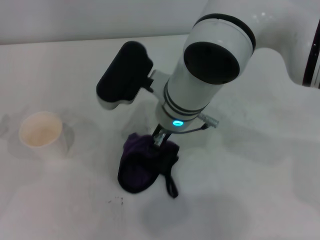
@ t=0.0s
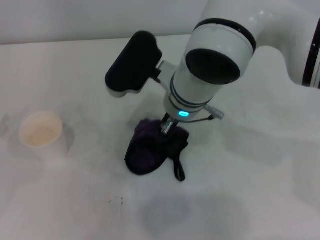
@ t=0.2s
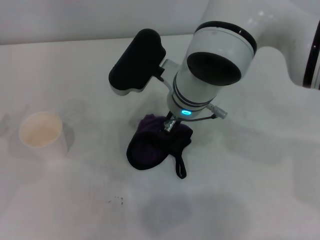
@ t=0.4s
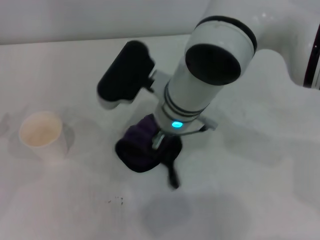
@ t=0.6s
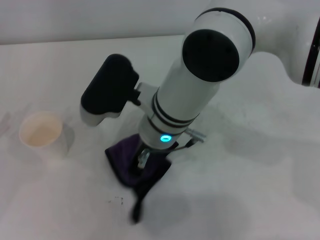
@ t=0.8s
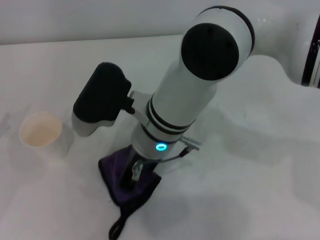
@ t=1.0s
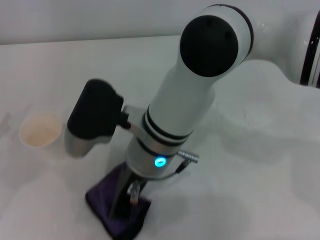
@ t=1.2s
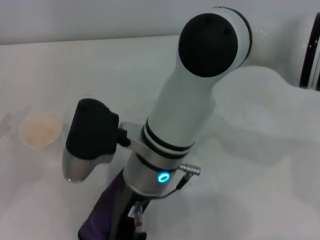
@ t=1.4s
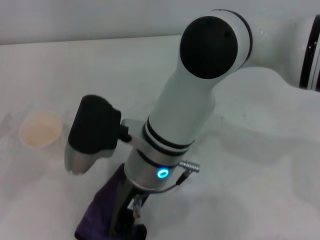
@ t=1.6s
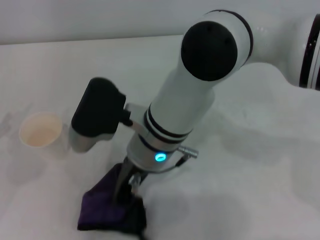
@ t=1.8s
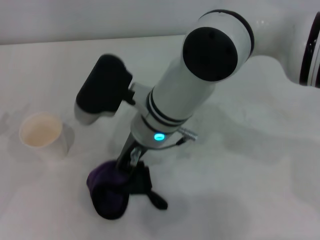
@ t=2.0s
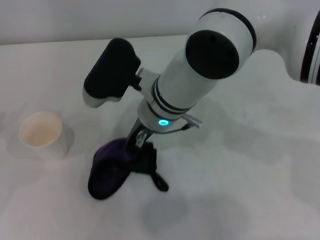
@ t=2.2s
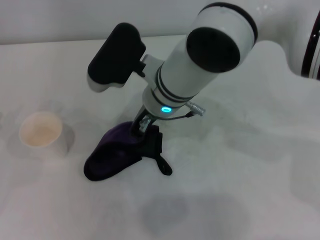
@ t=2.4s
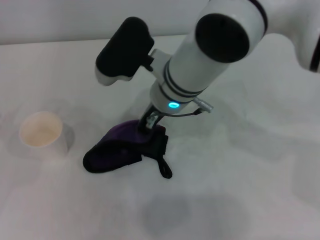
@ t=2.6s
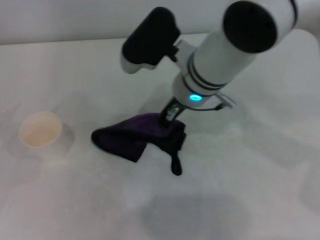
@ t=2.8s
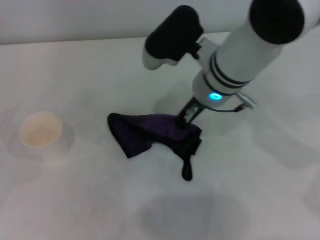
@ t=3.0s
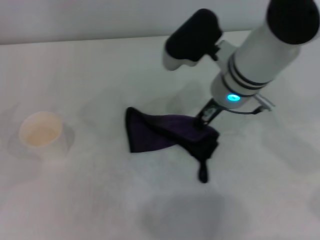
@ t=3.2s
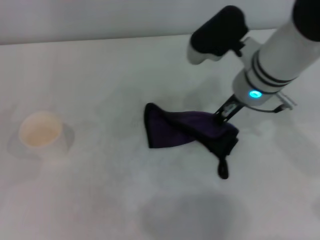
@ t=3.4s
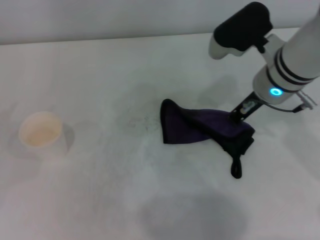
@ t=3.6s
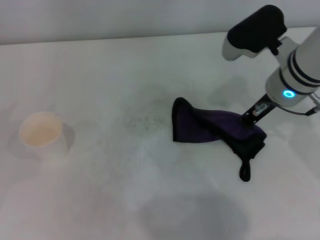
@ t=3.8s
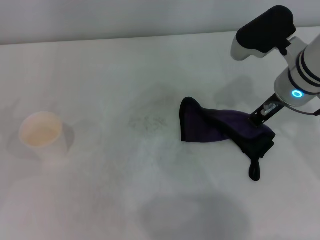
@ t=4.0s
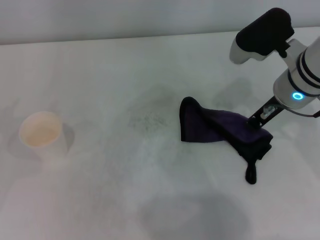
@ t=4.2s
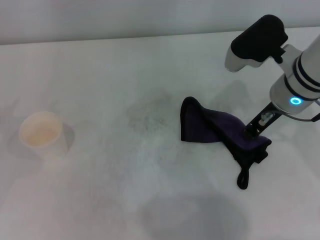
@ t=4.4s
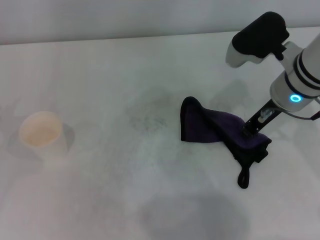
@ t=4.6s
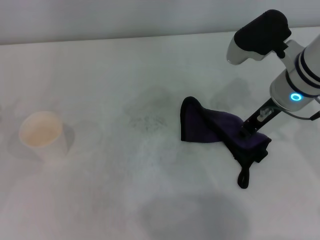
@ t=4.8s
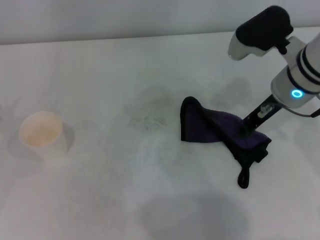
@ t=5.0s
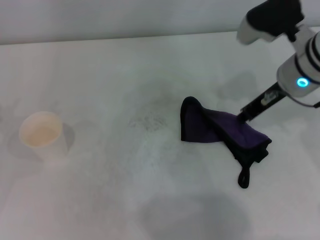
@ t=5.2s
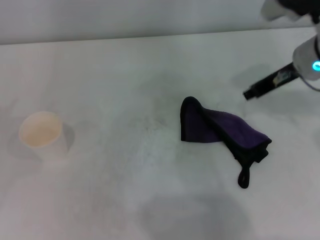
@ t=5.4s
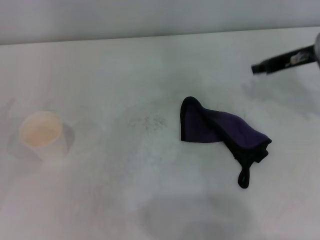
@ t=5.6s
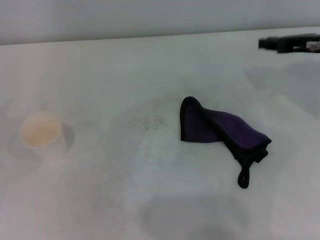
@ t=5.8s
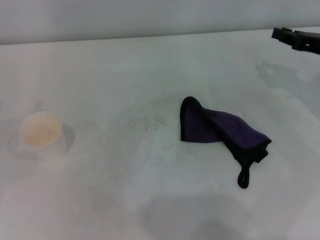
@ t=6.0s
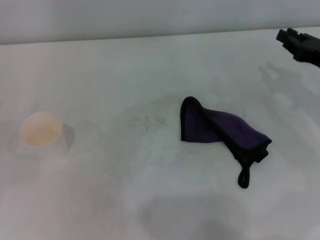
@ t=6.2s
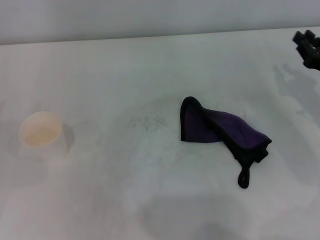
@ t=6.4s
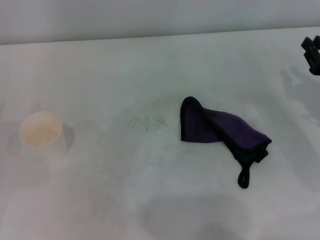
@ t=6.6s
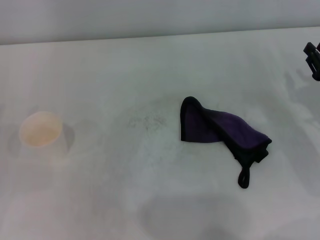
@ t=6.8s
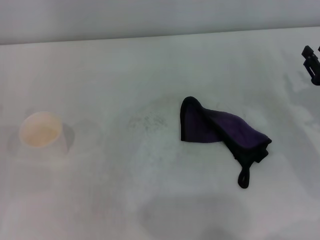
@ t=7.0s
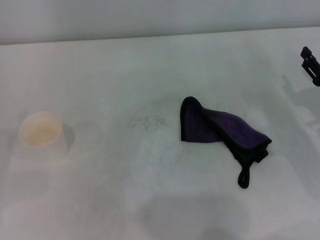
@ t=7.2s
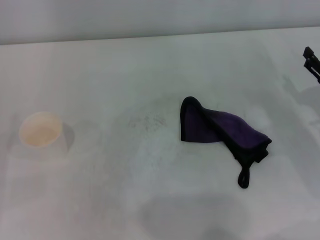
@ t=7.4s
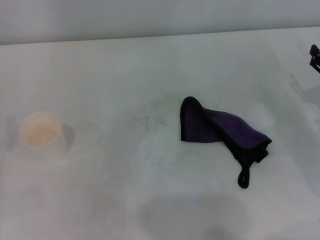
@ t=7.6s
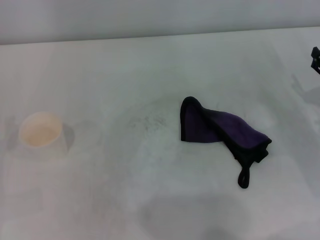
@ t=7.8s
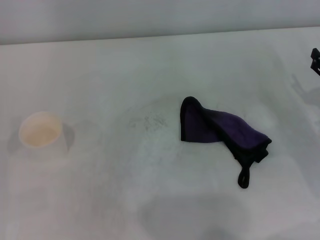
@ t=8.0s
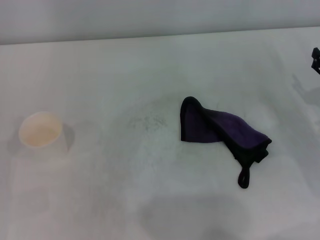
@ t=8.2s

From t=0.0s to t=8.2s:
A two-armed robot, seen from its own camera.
Step, from t=0.0s to t=3.8s: Wipe the stains off the table with the right gripper.
Step, from t=4.2s to t=4.6s: Place the rag on the table with the right gripper.
From t=0.0s to t=1.6s: The right gripper shifts roughly 5 cm backward.
From t=1.6s to t=3.2s: The right gripper travels to the right and forward by some 15 cm.
From t=3.2s to t=5.0s: The right gripper travels to the right by about 10 cm.
From t=5.0s to t=6.6s: The right gripper goes about 20 cm to the right, downward and backward.

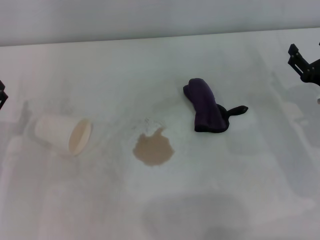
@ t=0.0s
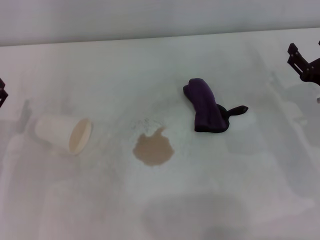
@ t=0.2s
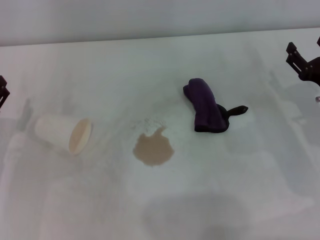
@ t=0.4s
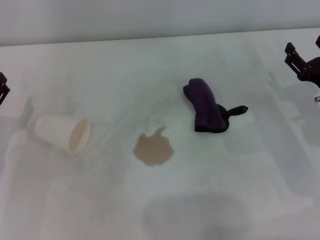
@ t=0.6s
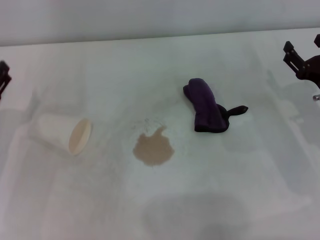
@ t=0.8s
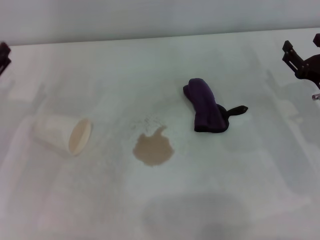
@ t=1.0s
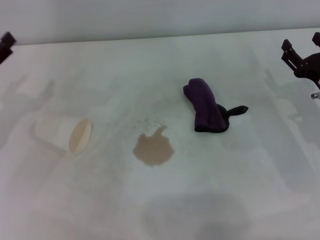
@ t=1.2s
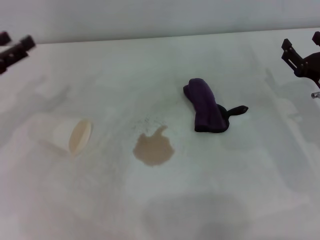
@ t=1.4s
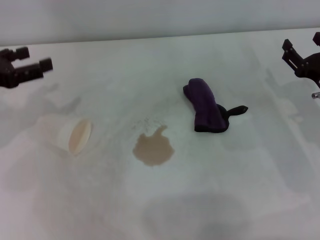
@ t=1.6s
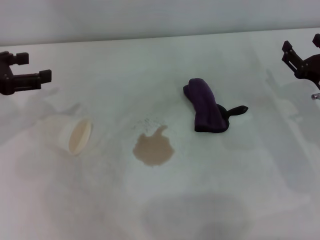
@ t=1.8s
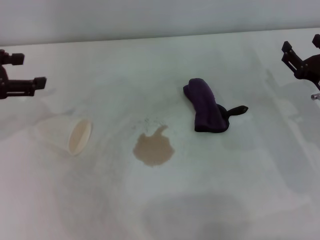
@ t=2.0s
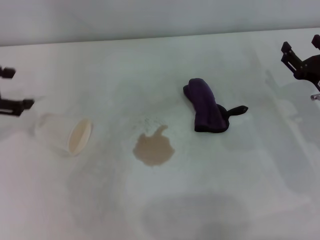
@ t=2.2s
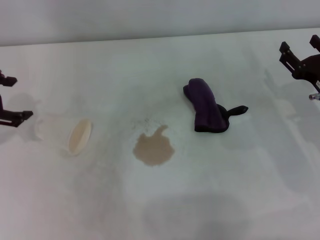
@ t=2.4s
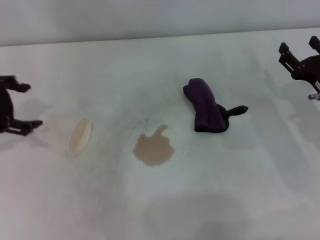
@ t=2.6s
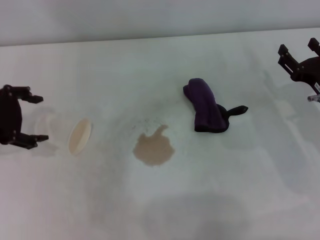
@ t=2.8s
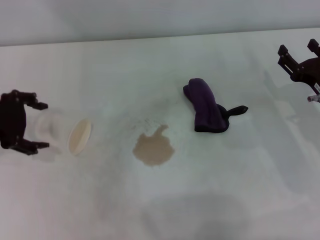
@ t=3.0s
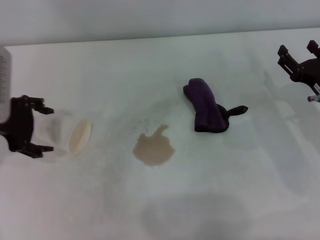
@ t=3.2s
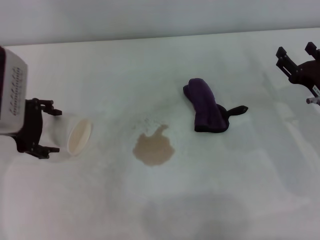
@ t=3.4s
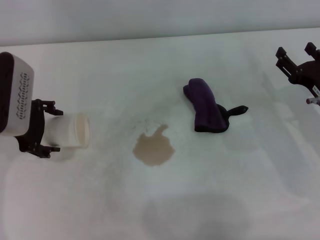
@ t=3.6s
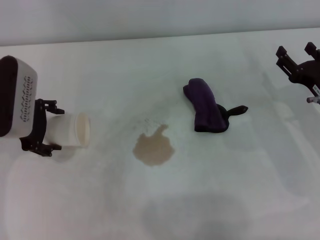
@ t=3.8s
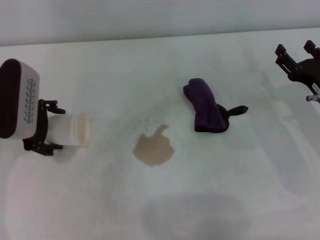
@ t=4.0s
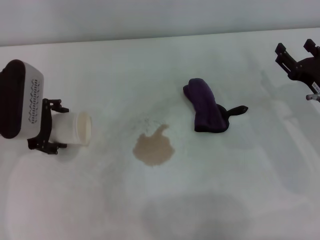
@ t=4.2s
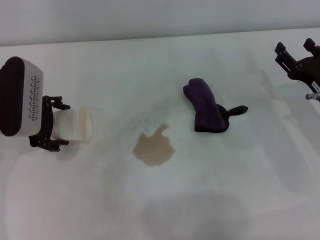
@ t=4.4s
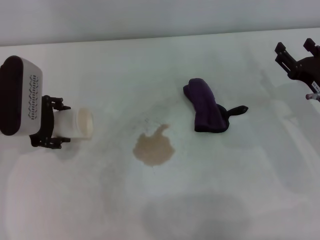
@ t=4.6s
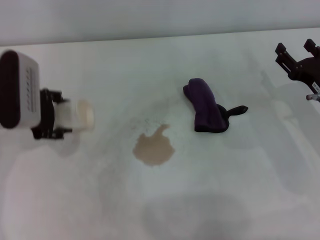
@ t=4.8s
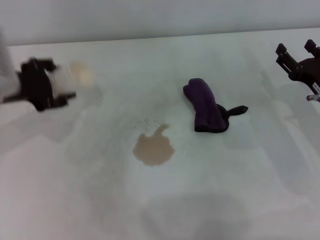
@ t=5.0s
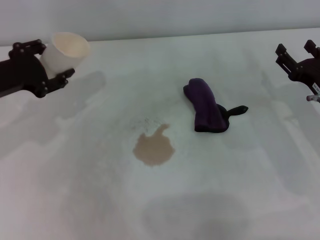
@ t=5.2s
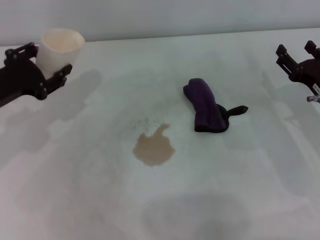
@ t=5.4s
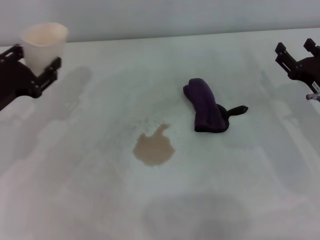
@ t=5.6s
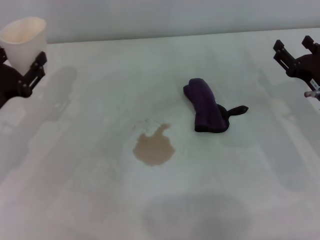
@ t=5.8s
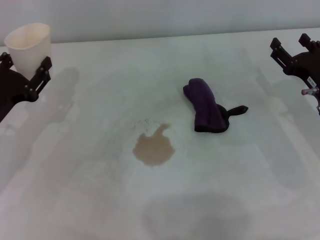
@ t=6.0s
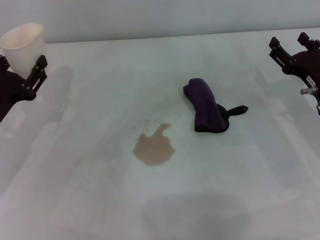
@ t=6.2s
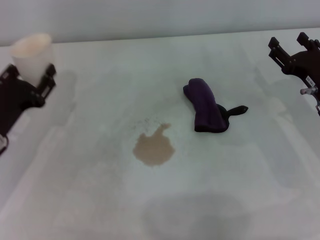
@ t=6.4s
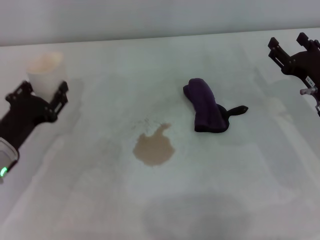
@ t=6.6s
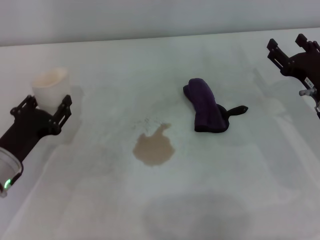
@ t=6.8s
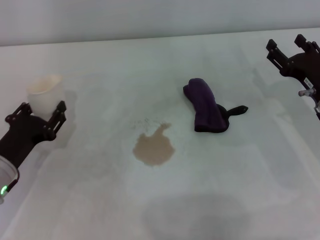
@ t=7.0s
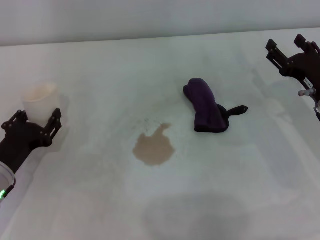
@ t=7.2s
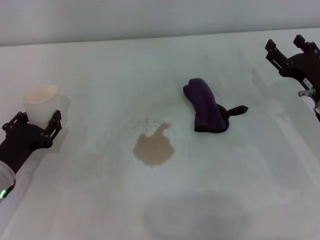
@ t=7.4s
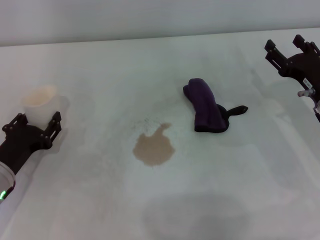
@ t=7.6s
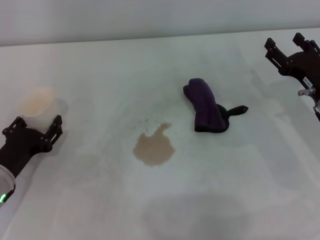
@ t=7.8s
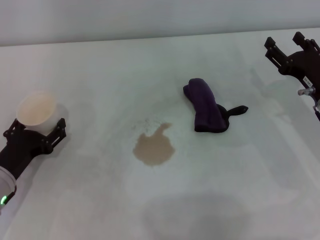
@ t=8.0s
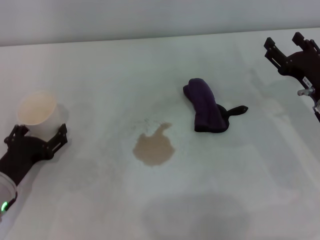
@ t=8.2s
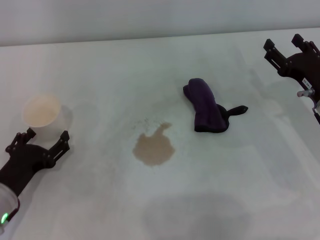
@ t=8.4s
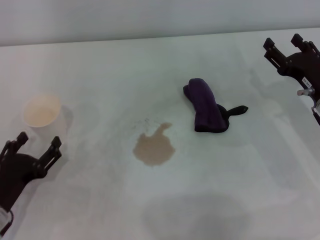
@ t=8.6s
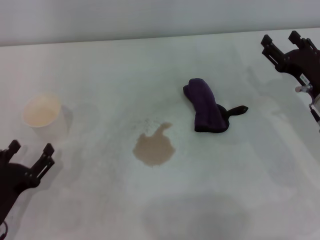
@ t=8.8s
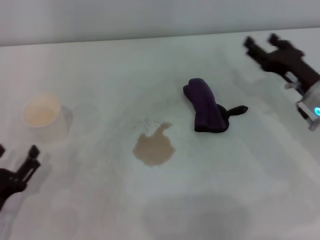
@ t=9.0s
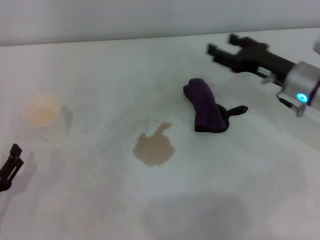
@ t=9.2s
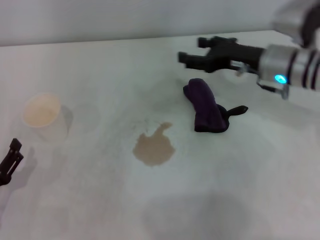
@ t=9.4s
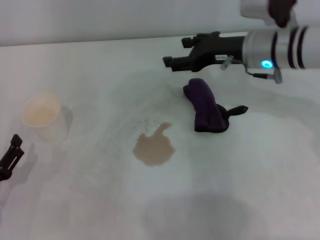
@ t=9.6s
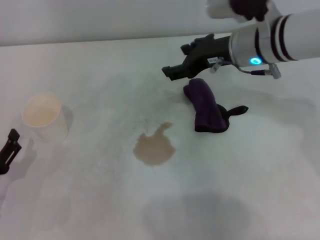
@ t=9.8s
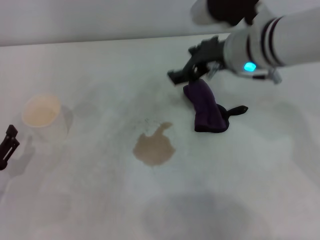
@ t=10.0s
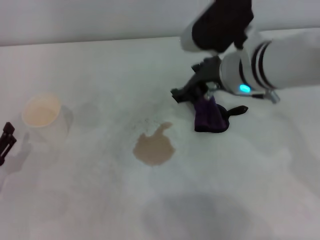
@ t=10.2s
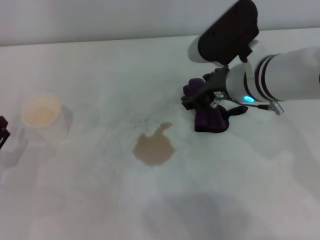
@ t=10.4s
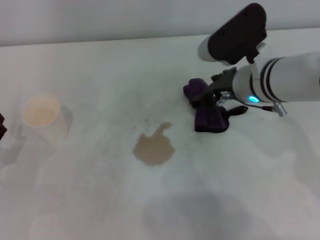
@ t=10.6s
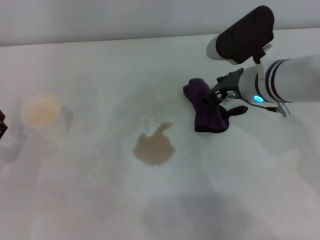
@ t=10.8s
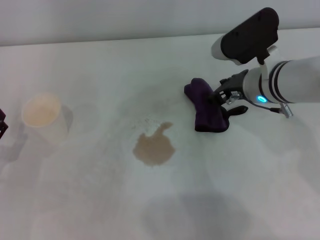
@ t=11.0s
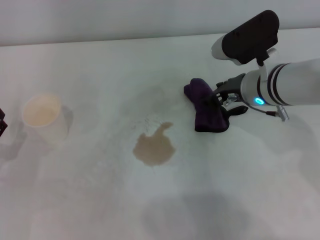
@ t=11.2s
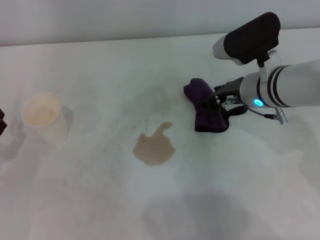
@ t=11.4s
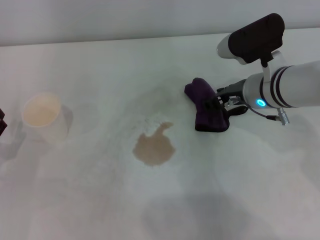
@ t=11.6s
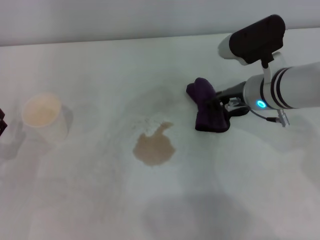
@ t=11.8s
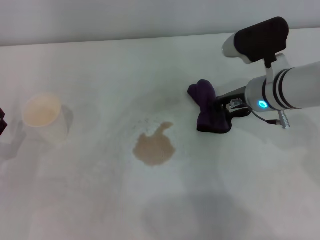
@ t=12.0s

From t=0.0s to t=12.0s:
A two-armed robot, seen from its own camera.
Step, from t=0.0s to t=4.4s: Grasp the paper cup with the left gripper.
Step, from t=4.6s to t=8.0s: Stand the paper cup upright with the left gripper.
From t=0.0s to t=1.6s: The left gripper heads upward and forward, covering some 15 cm.
From t=1.6s to t=3.0s: The left gripper moves about 5 cm.
From t=3.0s to t=4.4s: The left gripper moves downward, approximately 5 cm.
From t=4.4s to t=6.0s: The left gripper goes some 5 cm downward and backward, and closes up.
From t=6.0s to t=7.6s: The left gripper heads downward, covering some 5 cm.
From t=7.6s to t=9.0s: The left gripper heads backward, covering about 10 cm, and opens its fingers.
From t=9.0s to t=10.4s: The left gripper ends up roughly 5 cm from where it was; the right gripper is displaced to the left and upward by approximately 15 cm.
From t=10.4s to t=12.0s: The right gripper moves approximately 5 cm, and closes up.

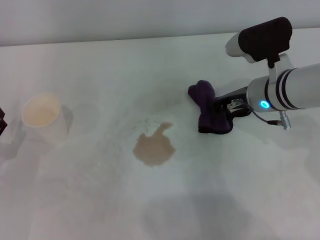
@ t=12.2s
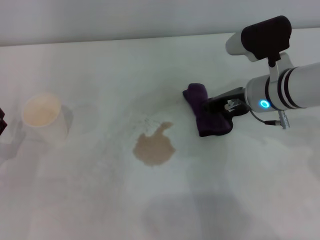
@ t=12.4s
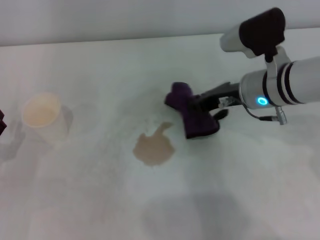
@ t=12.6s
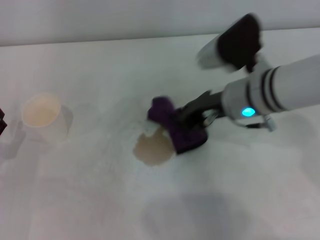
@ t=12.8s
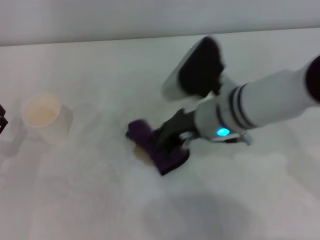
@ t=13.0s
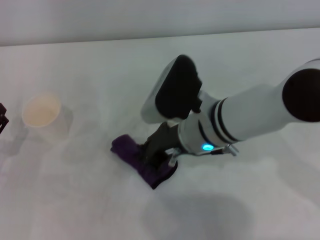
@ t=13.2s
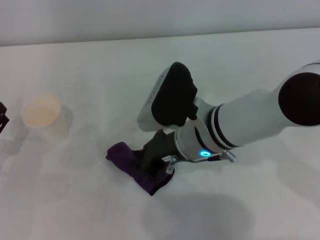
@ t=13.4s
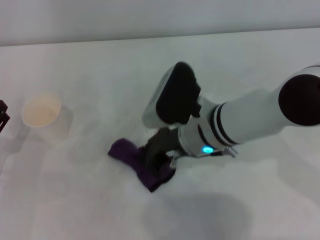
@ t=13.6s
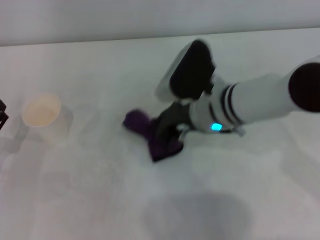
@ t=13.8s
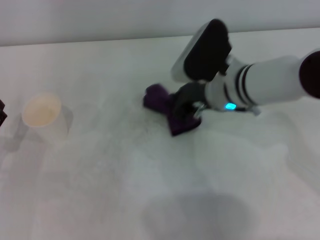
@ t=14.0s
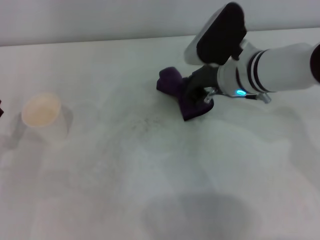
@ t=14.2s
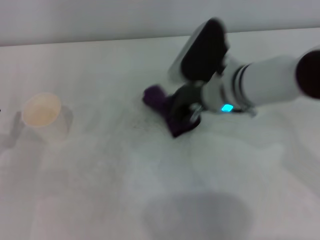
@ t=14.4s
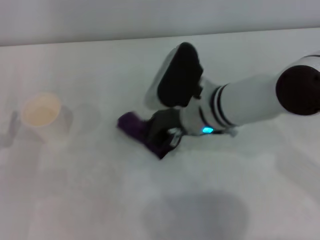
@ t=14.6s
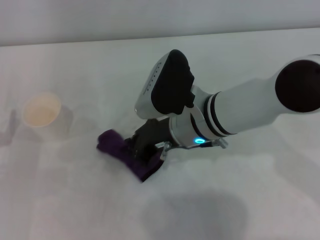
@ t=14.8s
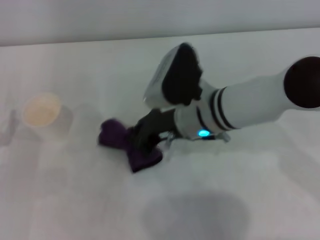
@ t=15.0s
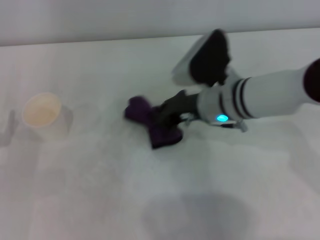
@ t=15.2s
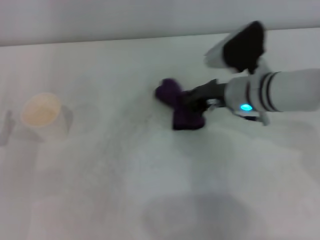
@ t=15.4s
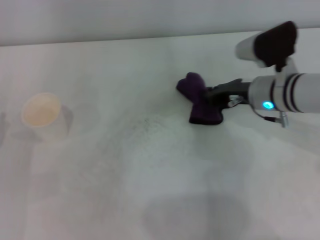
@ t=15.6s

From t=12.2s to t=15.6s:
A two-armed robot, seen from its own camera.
Step, from t=12.4s to t=15.4s: Wipe the stains off the table with the right gripper.
From t=12.2s to t=13.8s: The right gripper moves to the left, approximately 10 cm.
From t=13.8s to t=15.6s: The right gripper swings left and right, roughly 15 cm each way, with 2 reversals.
